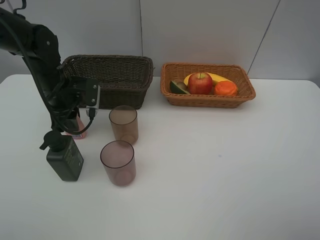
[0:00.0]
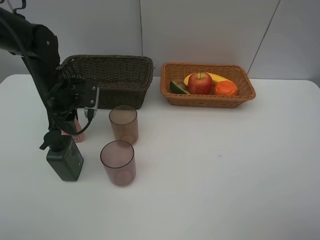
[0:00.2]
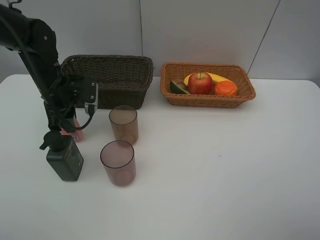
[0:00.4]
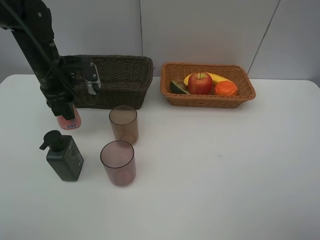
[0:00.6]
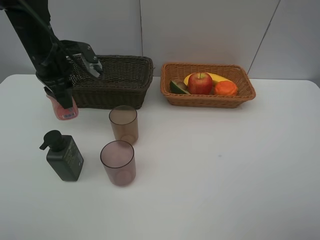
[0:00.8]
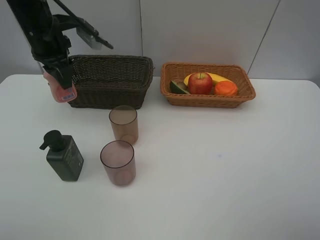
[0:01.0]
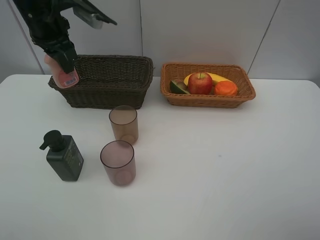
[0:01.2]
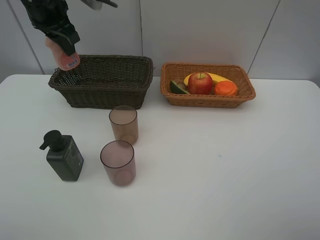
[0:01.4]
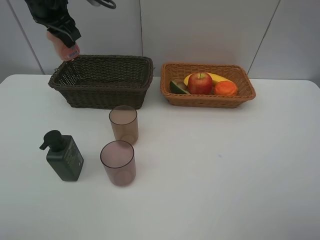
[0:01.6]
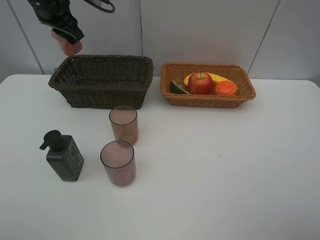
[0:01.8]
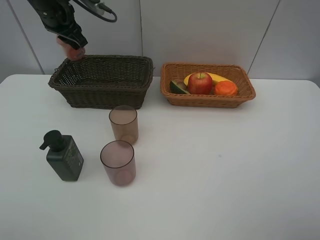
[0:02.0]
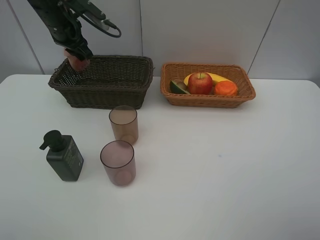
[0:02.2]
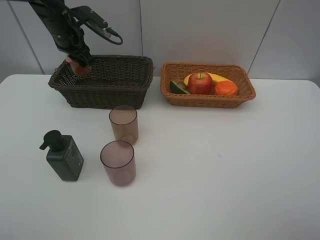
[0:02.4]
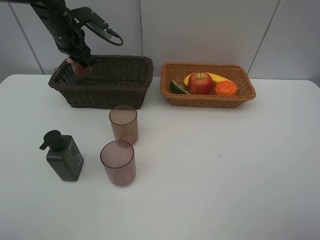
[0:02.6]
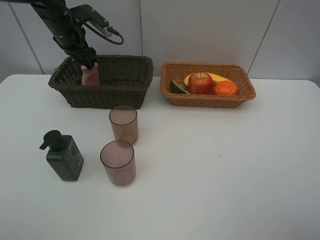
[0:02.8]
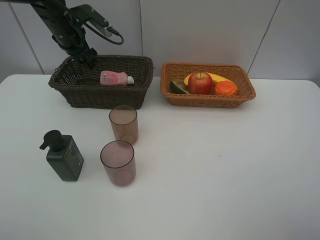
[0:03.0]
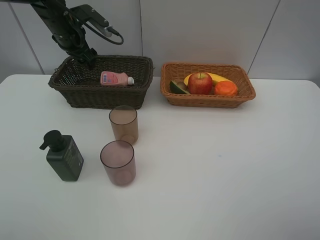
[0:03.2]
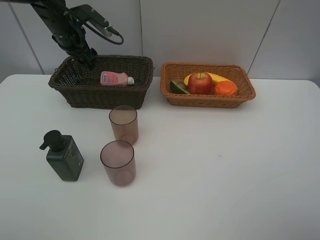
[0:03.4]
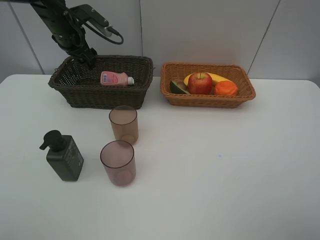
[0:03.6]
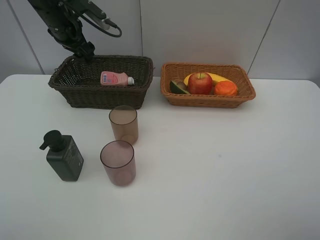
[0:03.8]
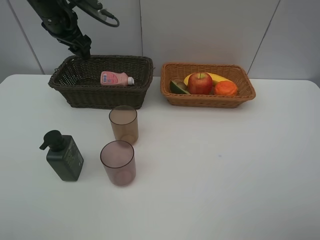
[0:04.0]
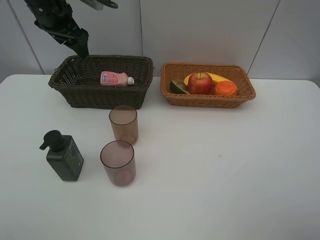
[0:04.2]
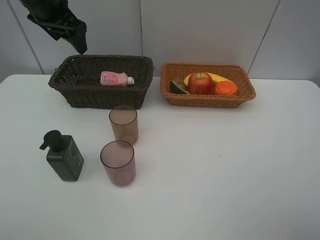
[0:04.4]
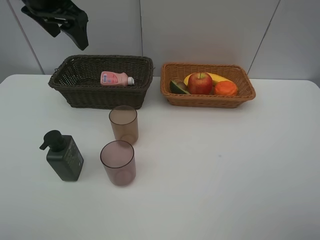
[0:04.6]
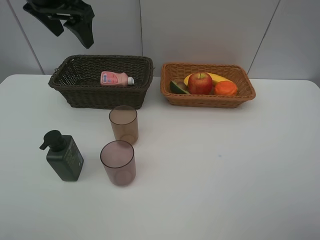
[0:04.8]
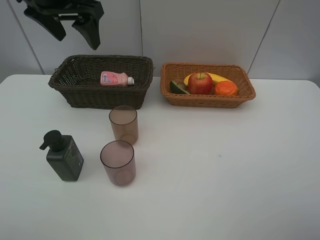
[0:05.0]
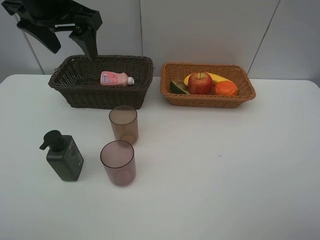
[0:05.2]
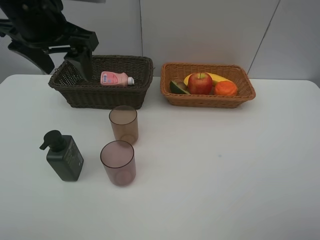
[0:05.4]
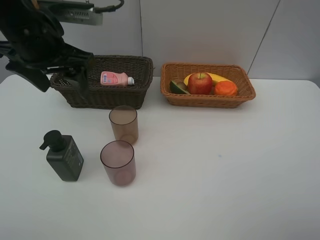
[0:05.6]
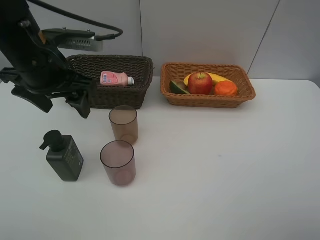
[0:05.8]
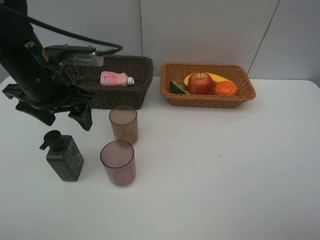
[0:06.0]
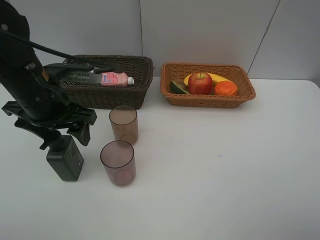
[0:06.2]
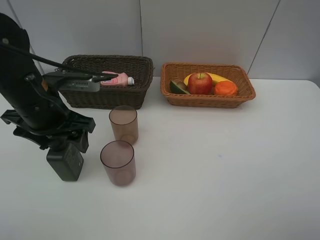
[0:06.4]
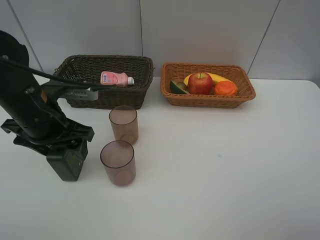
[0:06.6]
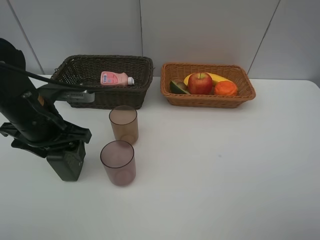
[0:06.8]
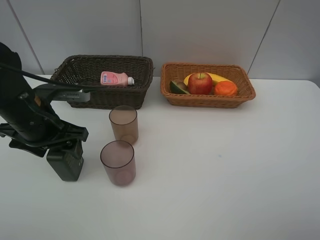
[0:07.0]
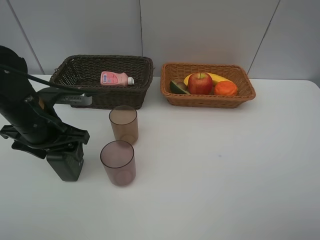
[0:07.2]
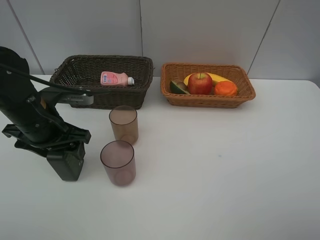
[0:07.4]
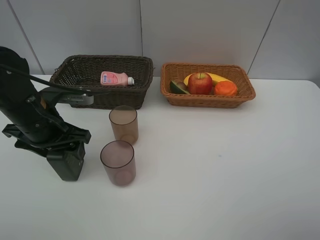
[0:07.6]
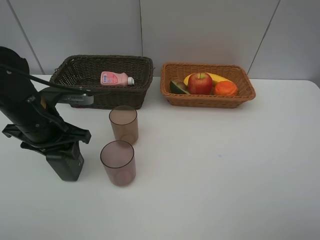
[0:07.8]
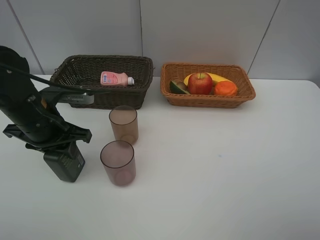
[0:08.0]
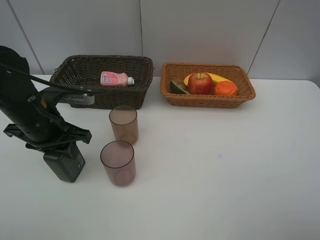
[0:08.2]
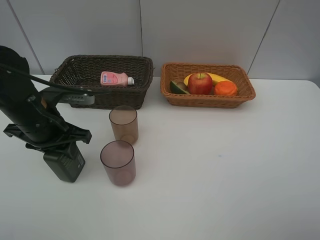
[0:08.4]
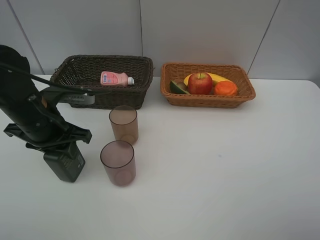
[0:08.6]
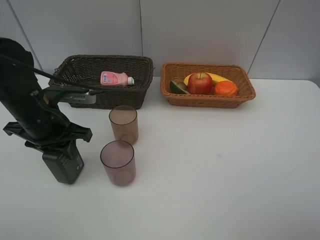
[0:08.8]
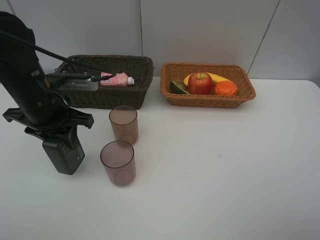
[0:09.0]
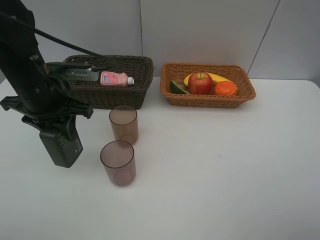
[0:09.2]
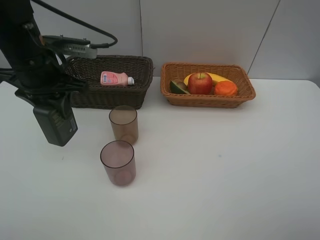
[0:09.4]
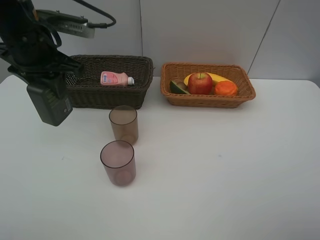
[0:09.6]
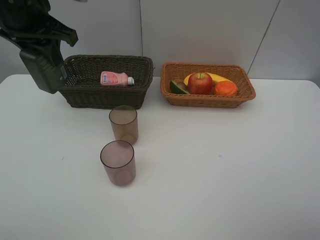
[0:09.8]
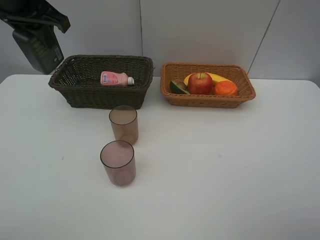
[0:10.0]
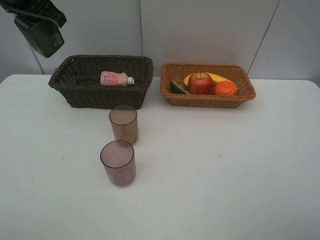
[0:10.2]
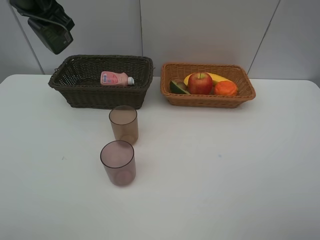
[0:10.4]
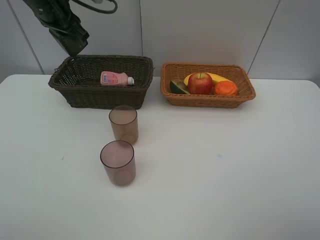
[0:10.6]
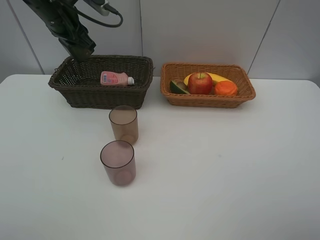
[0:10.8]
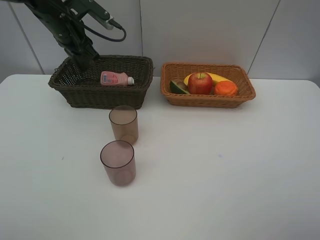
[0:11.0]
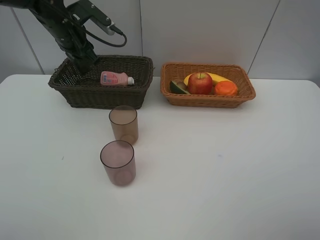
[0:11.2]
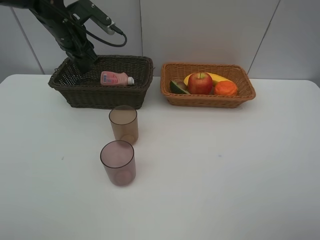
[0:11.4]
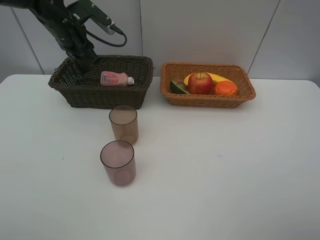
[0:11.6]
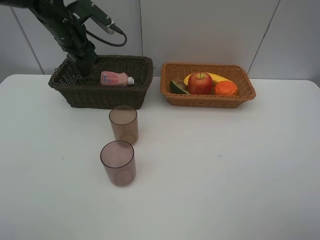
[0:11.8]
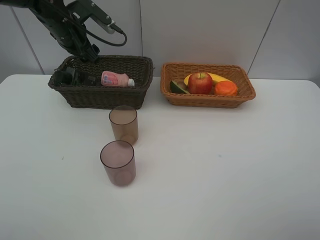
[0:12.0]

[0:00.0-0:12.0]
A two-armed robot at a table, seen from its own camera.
Task of the whole recording: Place multiple objects separately in different baskets.
Step, 0:00.6 to 0:02.8: Place the laundry detergent in the dark basket with left gripper.
Step, 0:03.0 to 0:09.0: Pick up the hard facial cleanser with left gripper.
0:00.0 to 0:01.6: The left gripper is displaced upward and forward by about 20 cm.
0:01.6 to 0:03.0: The left gripper moves downward and forward, some 10 cm, and opens.
0:03.0 to 0:04.4: The left gripper is displaced upward and backward by approximately 10 cm.
0:04.4 to 0:06.0: The left gripper goes approximately 15 cm backward and downward.
0:06.0 to 0:07.6: The left gripper goes about 5 cm downward.
0:07.6 to 0:09.0: The left gripper closes up.
0:09.0 to 0:10.4: The left gripper shifts roughly 20 cm upward and forward.
0:10.4 to 0:12.0: The left gripper heads downward and forward, covering roughly 10 cm, and opens.

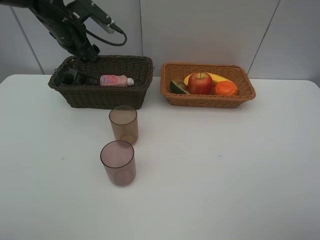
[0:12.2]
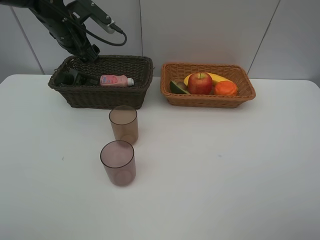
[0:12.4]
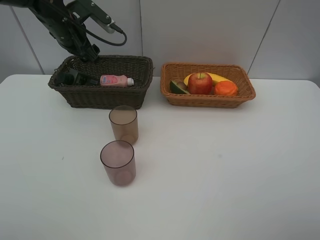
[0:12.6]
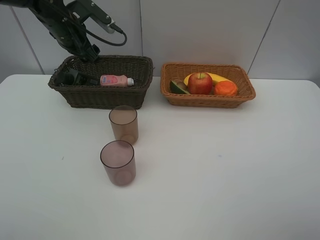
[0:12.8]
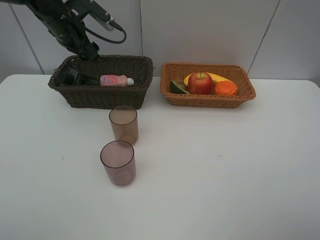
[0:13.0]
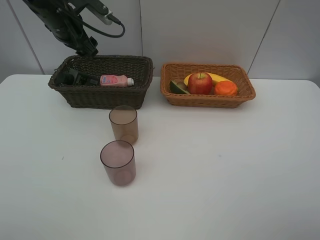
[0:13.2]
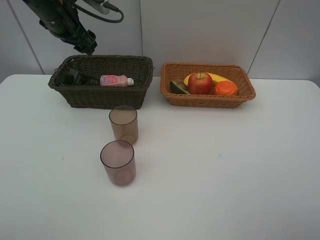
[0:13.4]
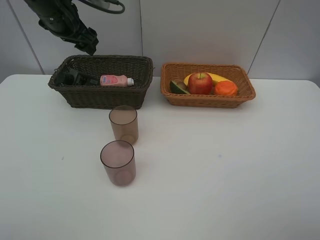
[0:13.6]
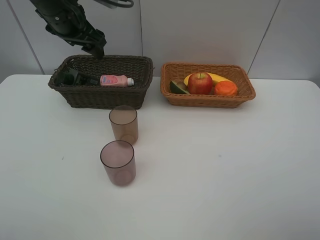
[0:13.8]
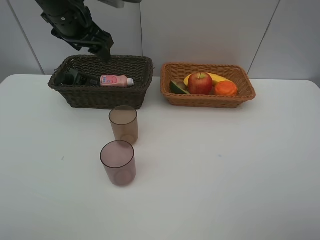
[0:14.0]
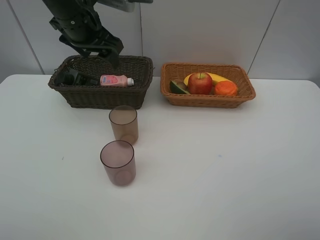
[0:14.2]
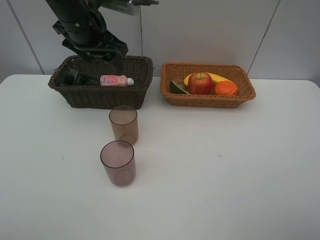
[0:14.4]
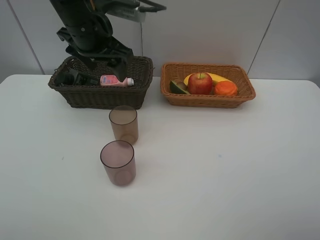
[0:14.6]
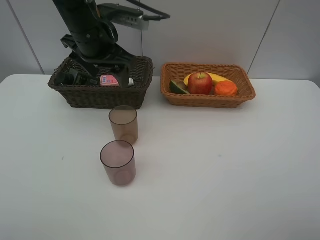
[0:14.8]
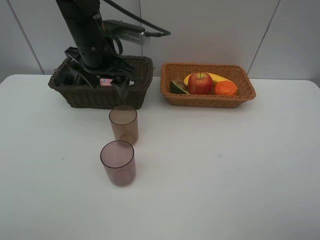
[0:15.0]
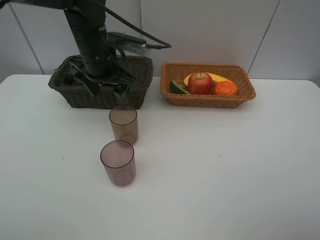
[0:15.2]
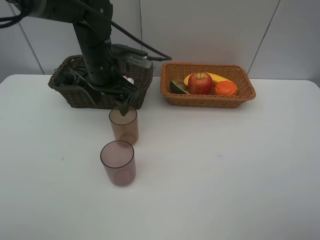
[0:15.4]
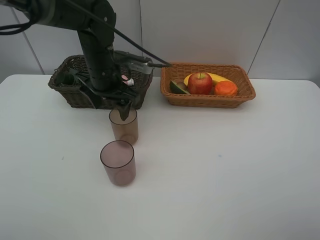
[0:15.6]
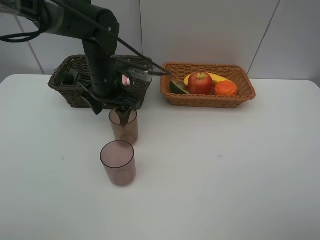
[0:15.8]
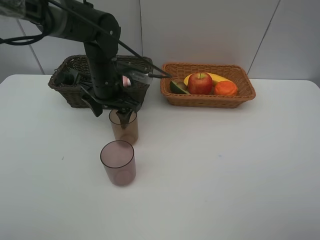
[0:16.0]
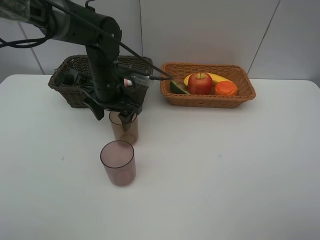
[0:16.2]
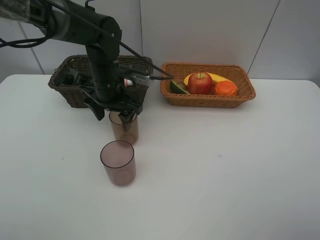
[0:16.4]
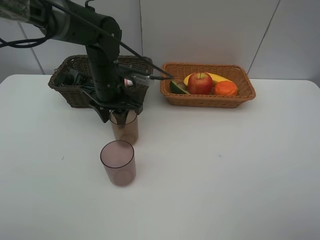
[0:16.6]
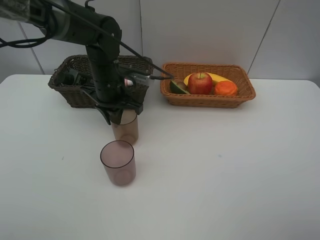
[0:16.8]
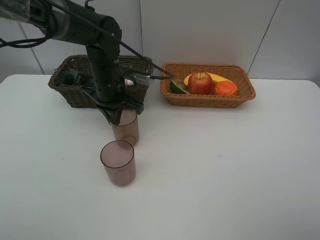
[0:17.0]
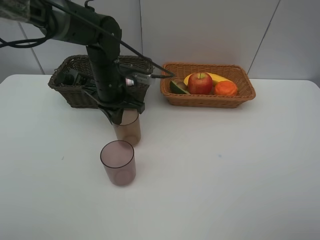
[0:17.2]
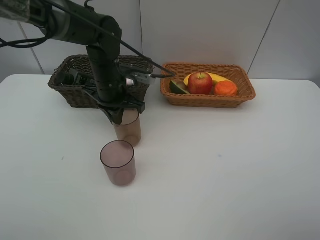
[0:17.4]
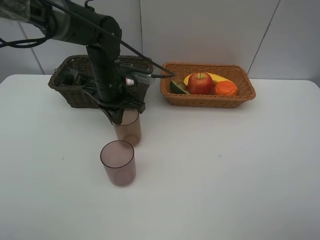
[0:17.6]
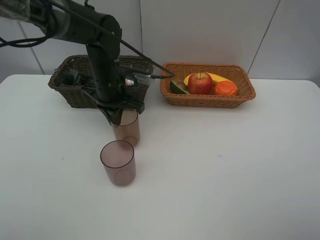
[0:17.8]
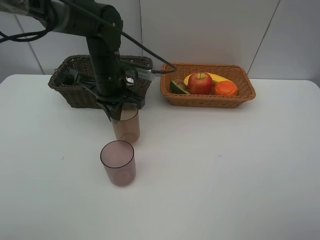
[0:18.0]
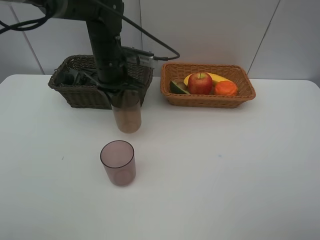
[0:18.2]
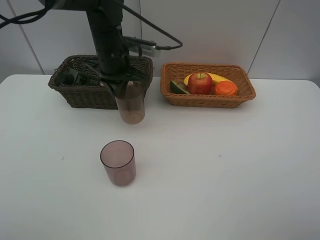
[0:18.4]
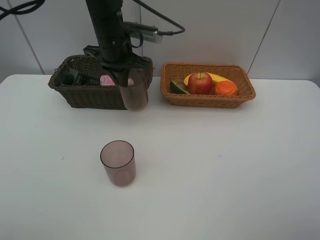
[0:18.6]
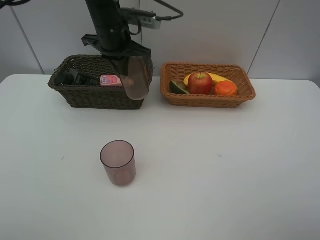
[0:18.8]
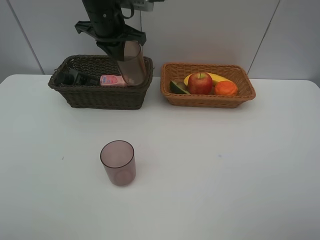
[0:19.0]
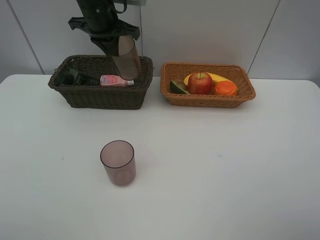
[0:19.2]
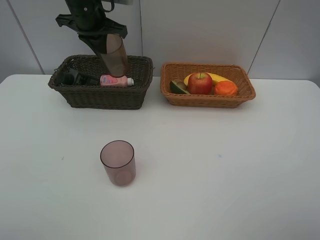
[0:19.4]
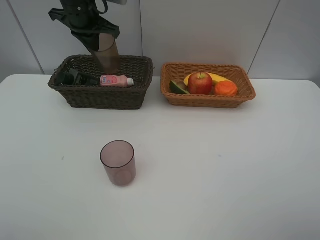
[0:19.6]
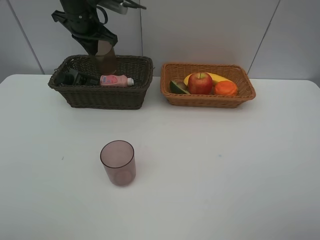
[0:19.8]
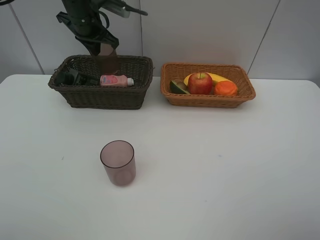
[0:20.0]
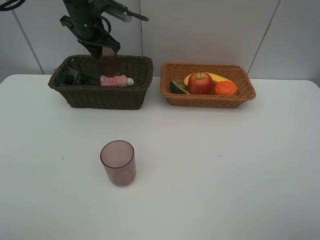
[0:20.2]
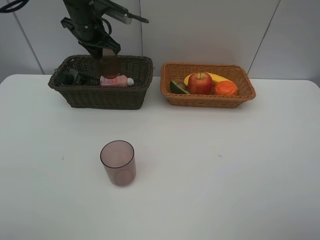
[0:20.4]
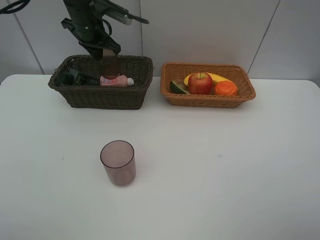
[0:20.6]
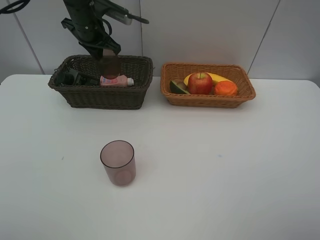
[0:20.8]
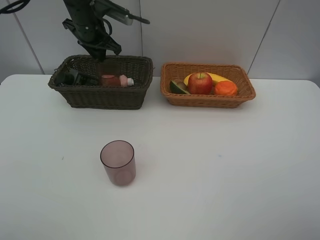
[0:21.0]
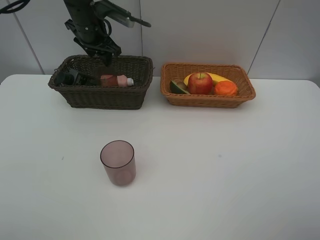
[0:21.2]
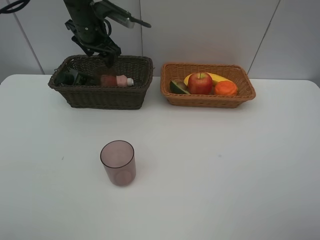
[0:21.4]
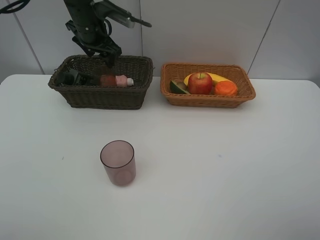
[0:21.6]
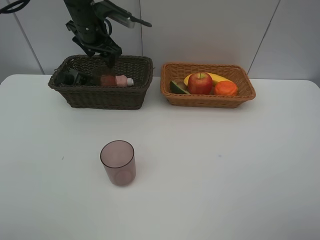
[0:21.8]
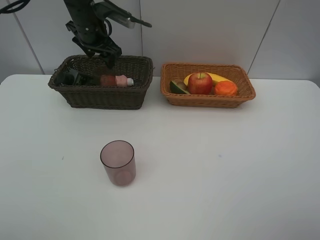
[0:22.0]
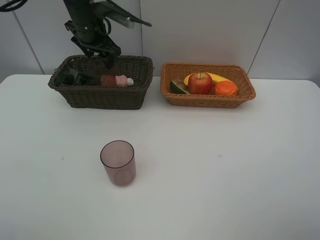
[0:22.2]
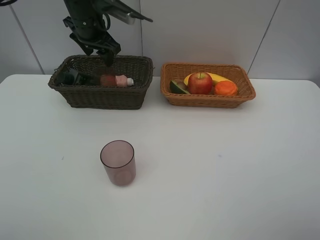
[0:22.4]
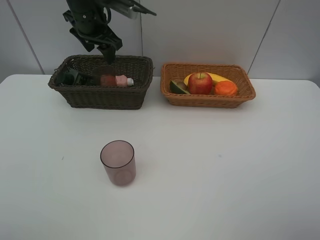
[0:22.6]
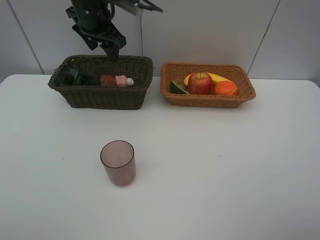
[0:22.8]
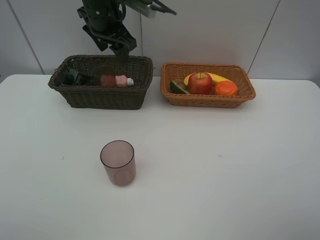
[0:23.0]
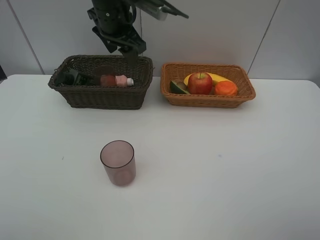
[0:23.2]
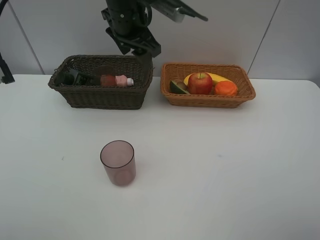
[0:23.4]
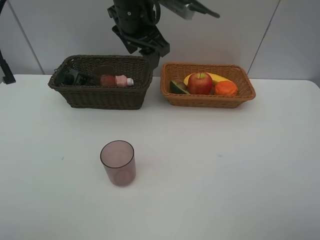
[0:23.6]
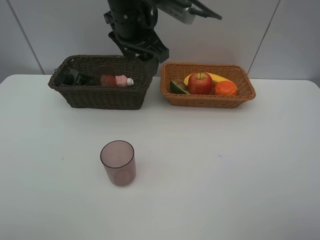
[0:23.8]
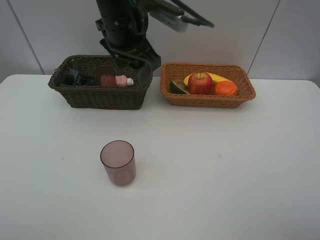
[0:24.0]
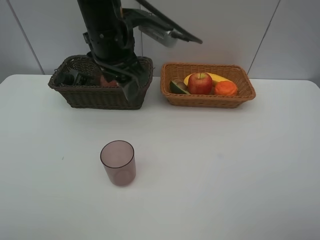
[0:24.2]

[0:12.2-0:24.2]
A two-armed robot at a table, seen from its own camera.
Task of the whole recording: Place multiple objects separately in different baskets.
Step, 0:12.6 to 0:18.0: Pick up the dark brown cup with left gripper.
Step, 0:18.2 to 0:21.8: Place the dark brown cup in the dark basket with left gripper.
0:12.2 to 0:13.8: The left gripper is displaced upward by roughly 5 cm.
0:13.8 to 0:15.2: The left gripper moves downward and to the right, some 10 cm.
0:15.2 to 0:16.6: The left gripper moves downward, about 5 cm, and closes its fingers.
0:16.6 to 0:18.2: The left gripper closes its fingers.
0:18.2 to 0:19.8: The left gripper moves forward, to the left and upward, roughly 15 cm.
0:19.8 to 0:21.2: The left gripper opens.
0:21.2 to 0:22.6: The grippers make only small movements.
0:22.6 to 0:24.2: The left gripper is displaced backward and to the right by approximately 15 cm.
